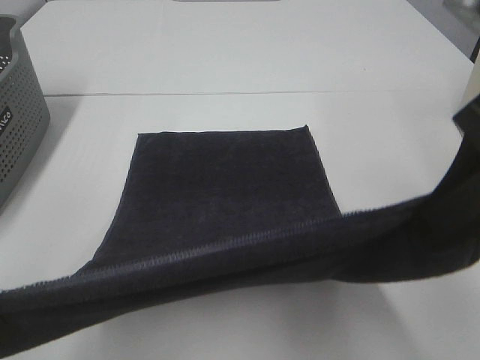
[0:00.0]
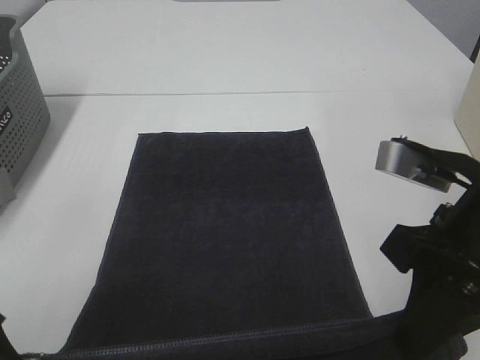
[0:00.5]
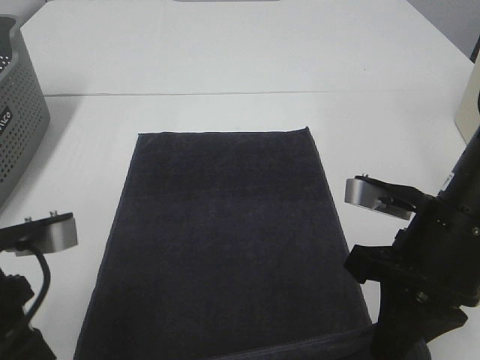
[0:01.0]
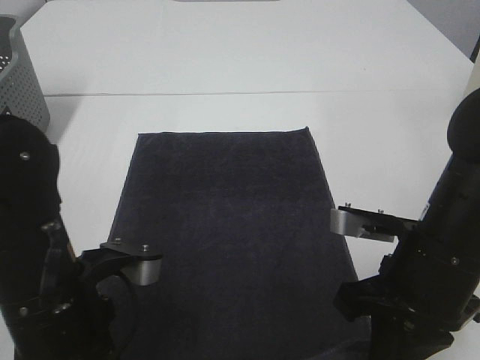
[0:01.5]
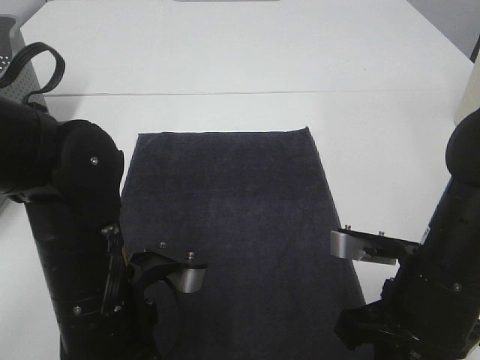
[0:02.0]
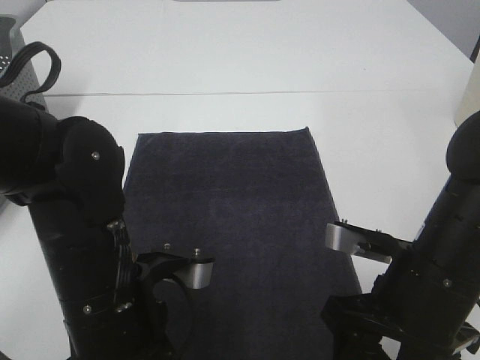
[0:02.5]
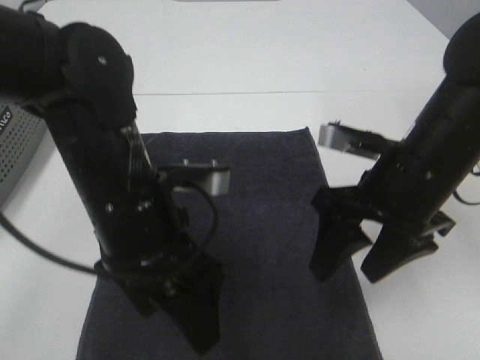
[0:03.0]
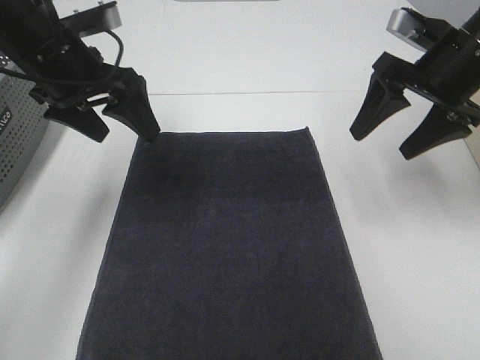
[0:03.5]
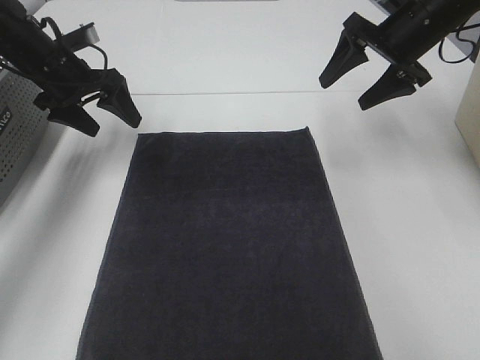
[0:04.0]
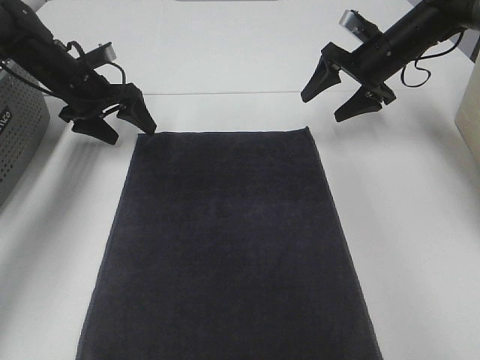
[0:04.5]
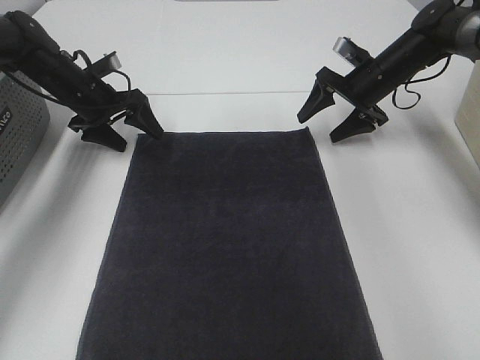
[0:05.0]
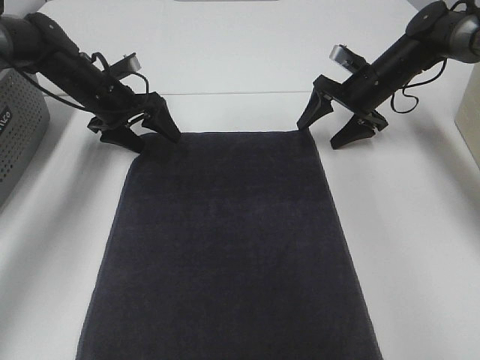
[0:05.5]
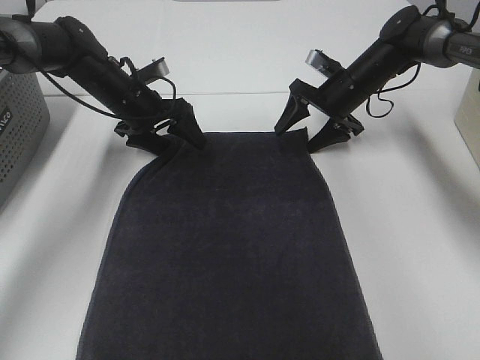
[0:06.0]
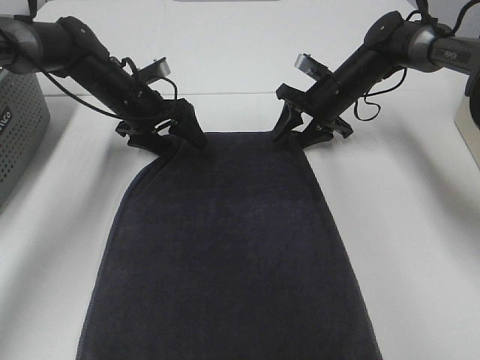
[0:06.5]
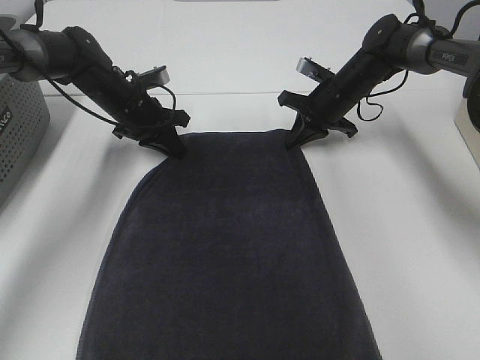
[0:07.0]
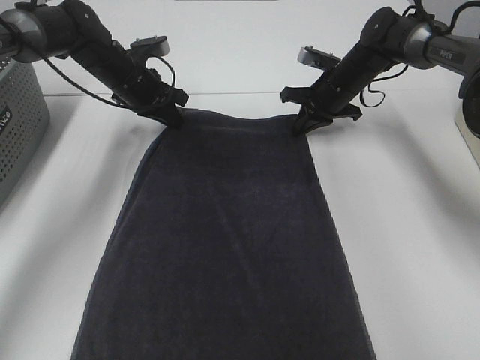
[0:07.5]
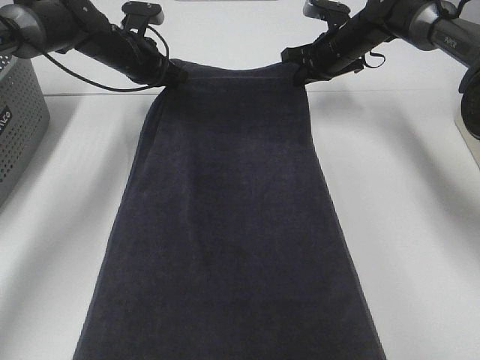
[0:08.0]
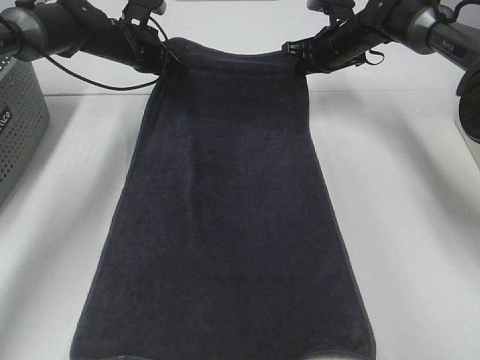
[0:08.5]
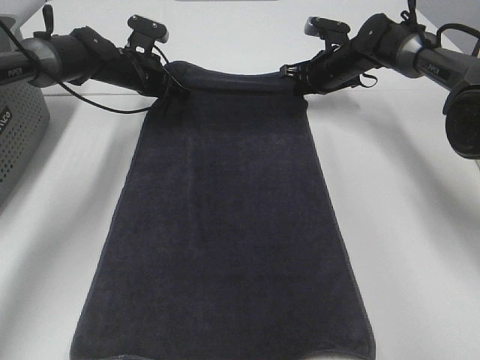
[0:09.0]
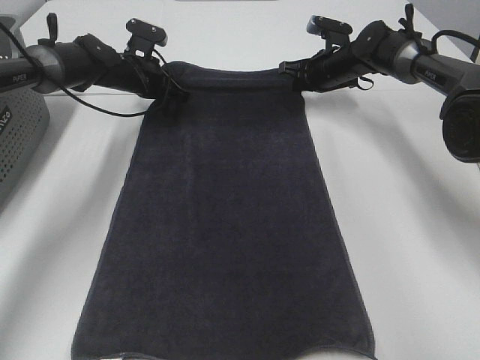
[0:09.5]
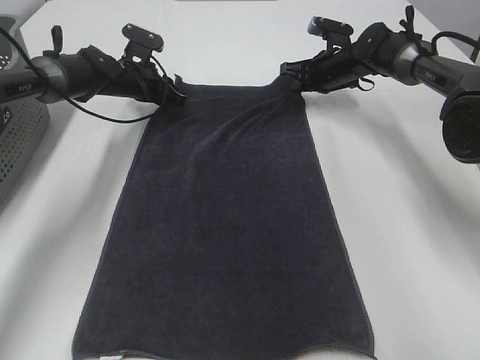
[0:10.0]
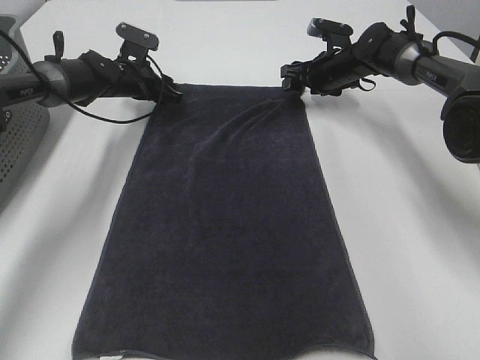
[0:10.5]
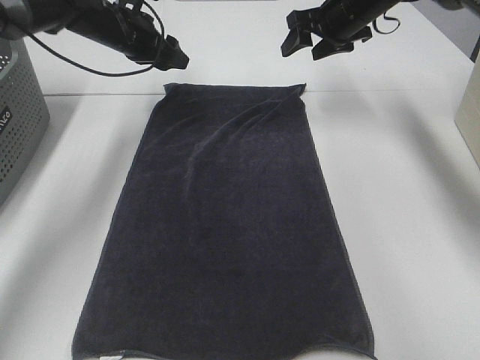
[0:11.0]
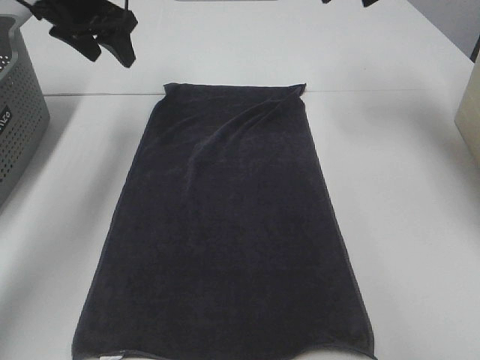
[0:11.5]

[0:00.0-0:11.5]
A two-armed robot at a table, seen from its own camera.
Task of the whole recording: Remove the towel and place it.
Step, 0:00.0 to 0:04.5: Left hand:adjust the gray towel.
Step, 0:00.0 to 0:04.5: Right hand:adjust the gray towel.
0:00.0 to 0:02.0: The right gripper moves downward, roughly 20 cm, while the left gripper shifts about 20 cm downward, to the right and forward.
0:02.0 to 0:04.0: The left gripper travels forward and to the left by about 35 cm, and opens up; the right gripper is displaced forward by approximately 30 cm, and opens.
0:04.0 to 0:06.0: The left gripper moves to the right and downward, some 10 cm; the right gripper travels downward and forward by approximately 15 cm.
0:06.0 to 0:07.5: The right gripper closes its fingers. The left gripper closes its fingers.
0:07.5 to 0:09.5: The right gripper moves some 5 cm. The left gripper shifts by about 5 cm.
0:09.5 to 0:11.5: The left gripper is displaced upward and backward by roughly 20 cm, and opens up; the right gripper heads upward, covering approximately 25 cm, and opens its fingers.

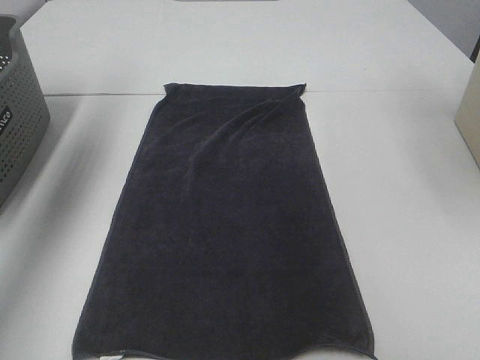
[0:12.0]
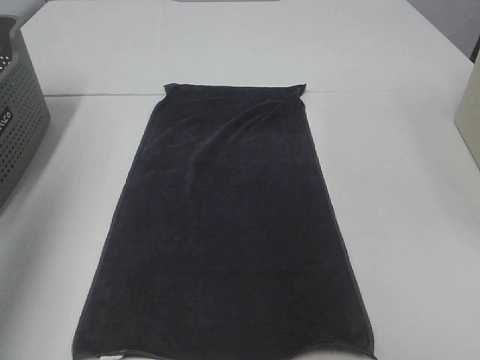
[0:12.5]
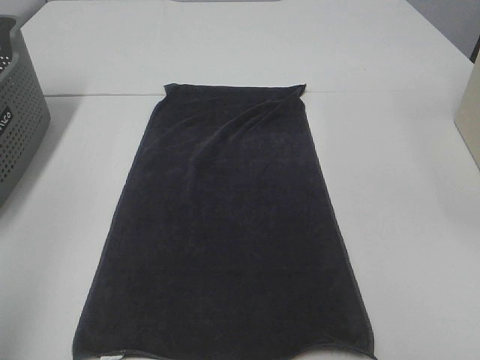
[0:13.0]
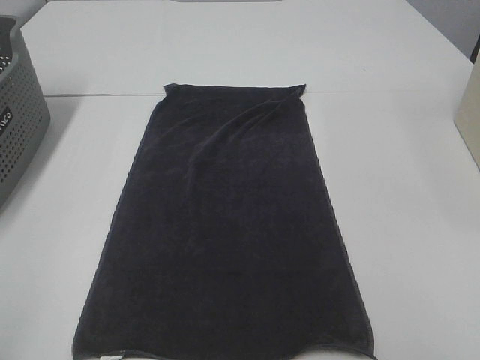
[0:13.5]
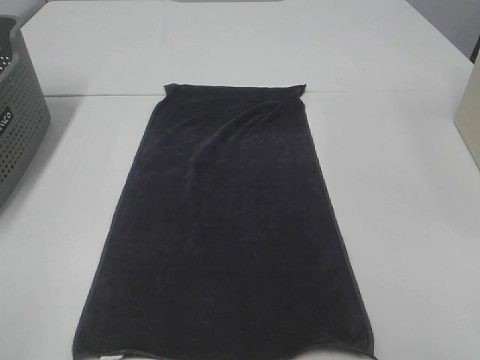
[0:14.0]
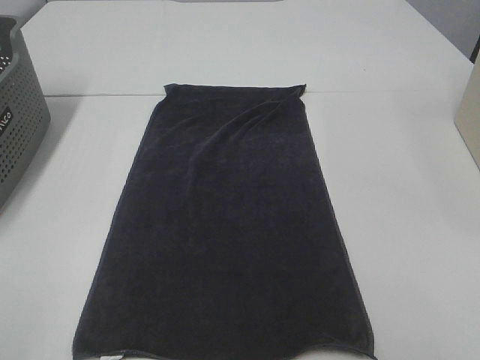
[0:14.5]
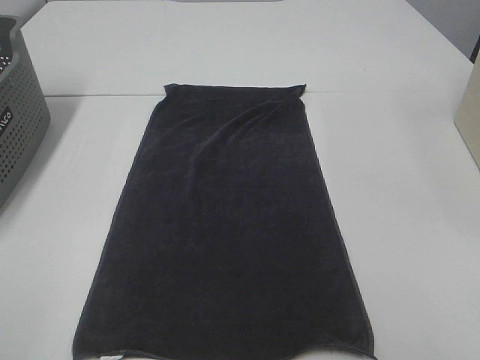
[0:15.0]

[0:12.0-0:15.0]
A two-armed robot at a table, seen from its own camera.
Task of the whole recording: Remove the towel and place it.
0:12.0 to 0:13.5: The left gripper is displaced backward by roughly 40 cm.

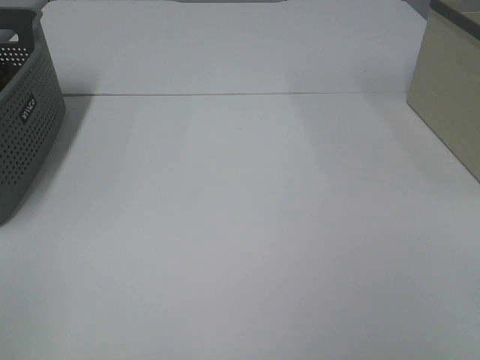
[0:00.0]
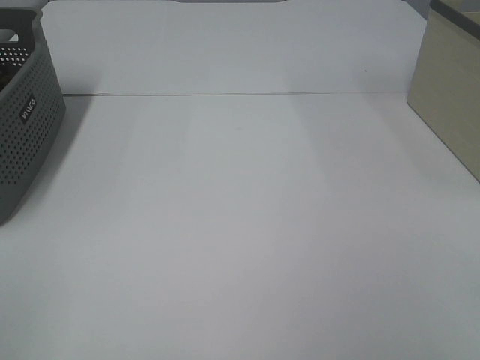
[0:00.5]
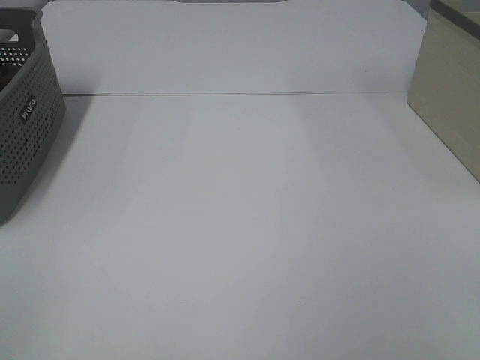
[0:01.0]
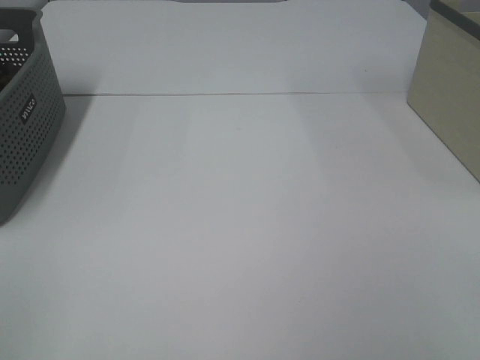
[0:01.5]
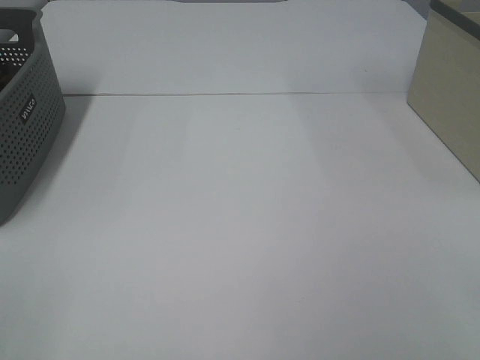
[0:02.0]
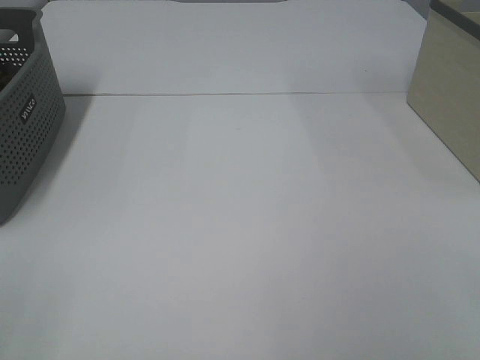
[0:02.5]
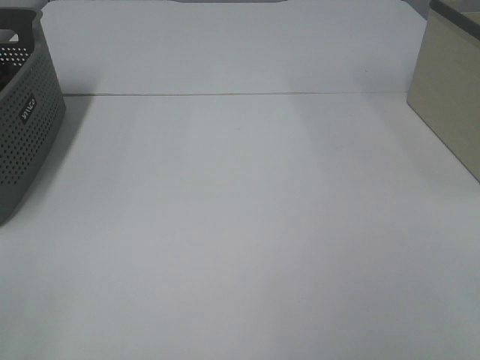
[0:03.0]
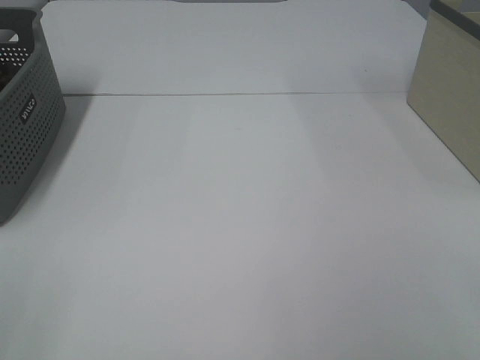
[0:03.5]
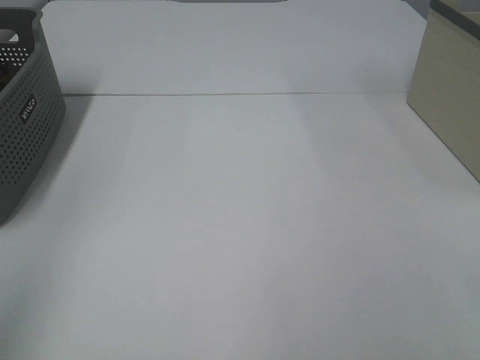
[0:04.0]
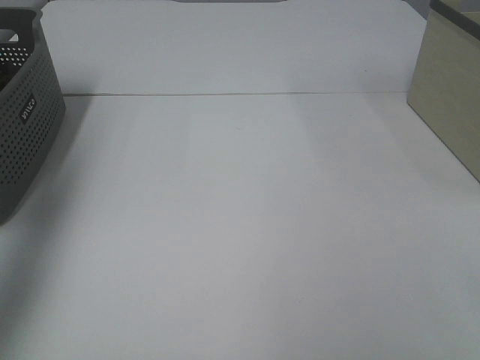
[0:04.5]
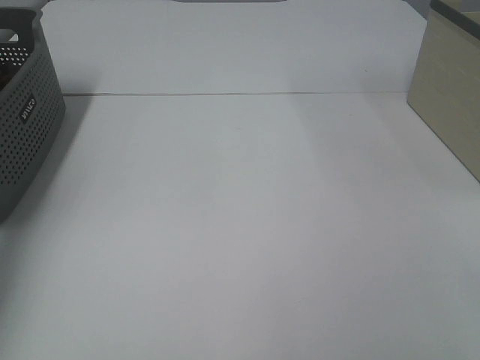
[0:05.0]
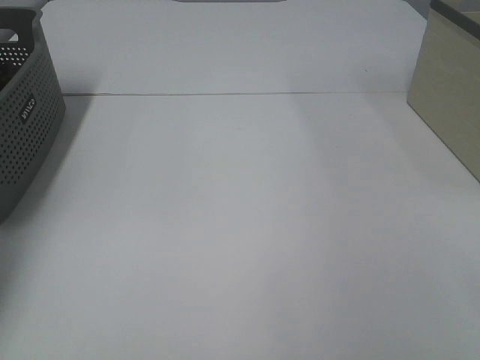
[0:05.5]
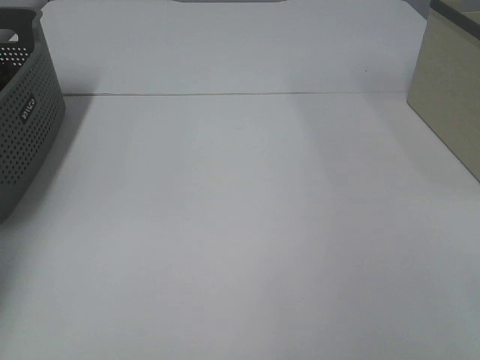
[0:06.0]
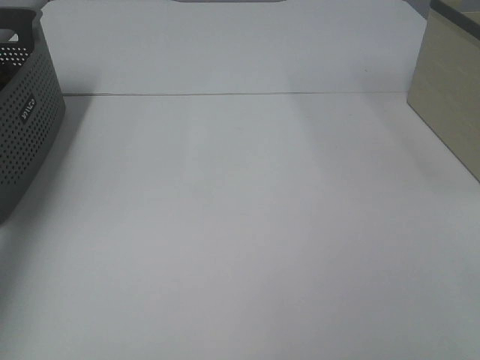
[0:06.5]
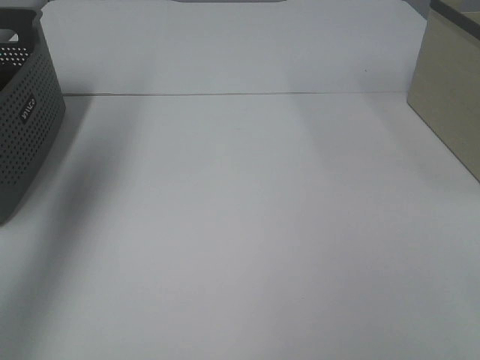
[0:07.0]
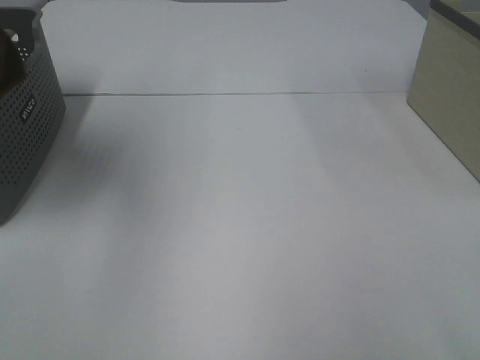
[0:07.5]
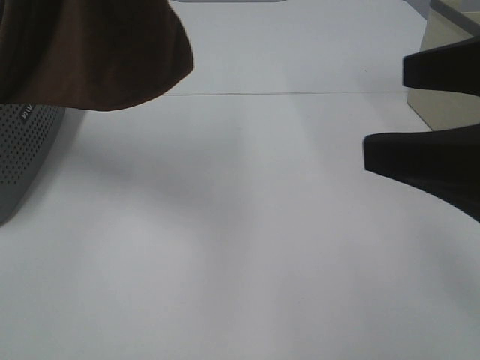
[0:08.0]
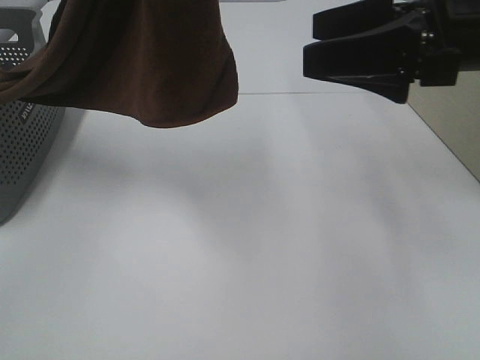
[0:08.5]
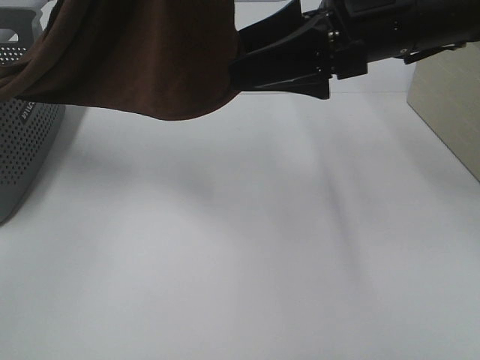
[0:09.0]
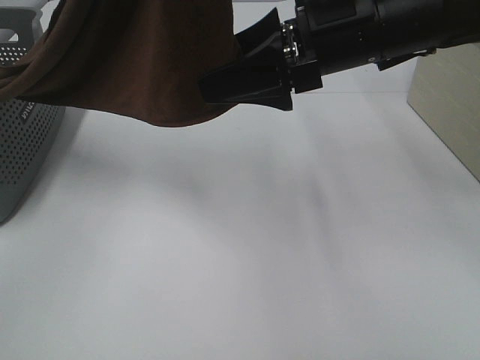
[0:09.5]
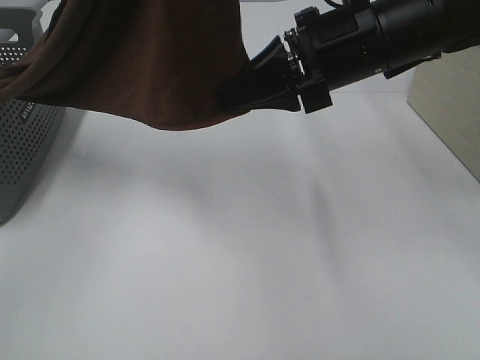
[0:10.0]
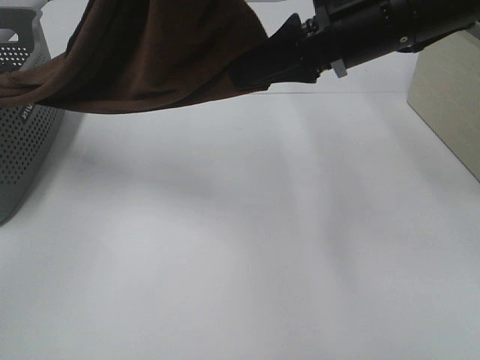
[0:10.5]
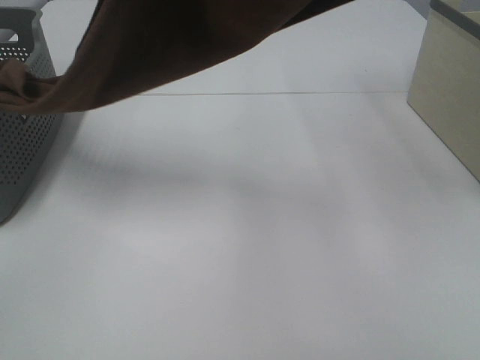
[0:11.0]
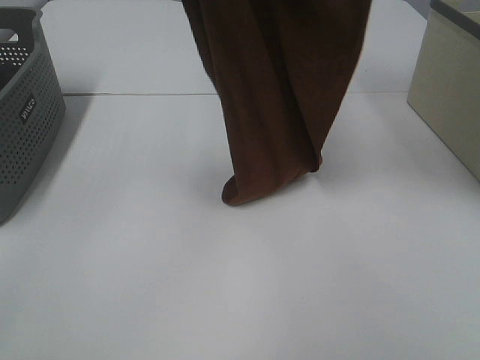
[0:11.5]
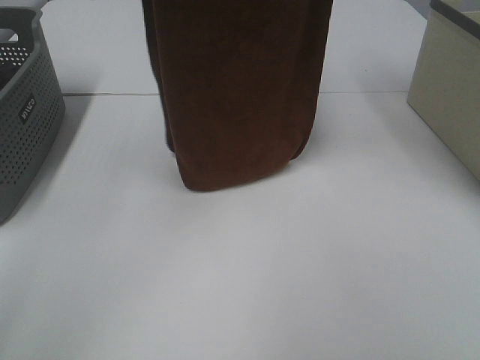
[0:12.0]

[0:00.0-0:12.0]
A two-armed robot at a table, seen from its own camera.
Task of the whole recording: Remove the towel and place it.
Step, 0:07.5 to 0:10.0: Right hand: grab a corner of the brown towel and straighten it.
0:00.0 to 0:02.0: The two grippers keep their place.
0:04.0 to 0:06.0: The left gripper travels forward and downward by approximately 40 cm, and closes.
0:06.0 to 0:08.0: The left gripper is displaced upward, to the right and backward by some 50 cm. The right gripper shifts roughly 15 cm forward and to the left.
0:08.0 to 0:10.0: The right gripper goes some 20 cm forward and to the left, and closes up; the left gripper ends up approximately 5 cm from where it was.
0:10.0 to 0:12.0: The right gripper travels upward by some 25 cm. Meanwhile the left gripper is displaced forward and to the left by about 15 cm.
